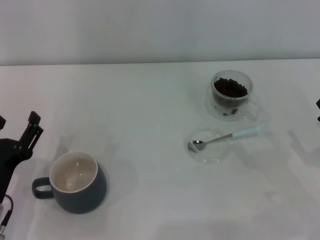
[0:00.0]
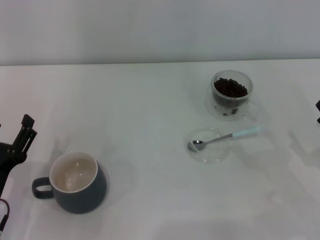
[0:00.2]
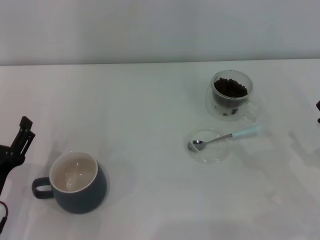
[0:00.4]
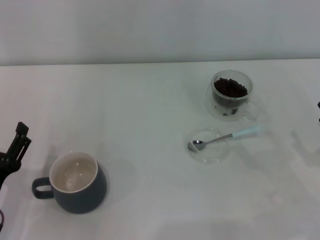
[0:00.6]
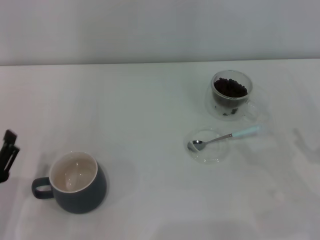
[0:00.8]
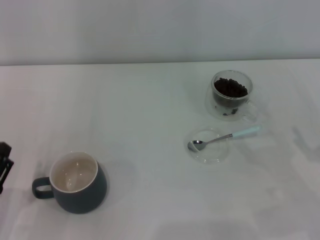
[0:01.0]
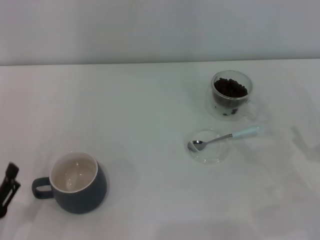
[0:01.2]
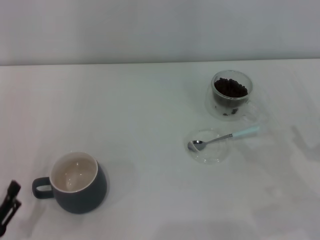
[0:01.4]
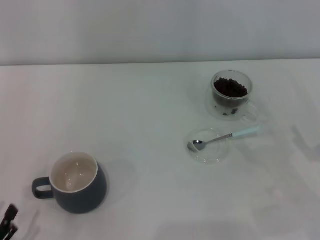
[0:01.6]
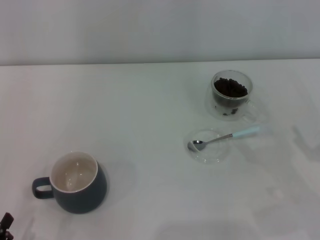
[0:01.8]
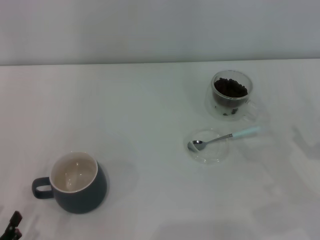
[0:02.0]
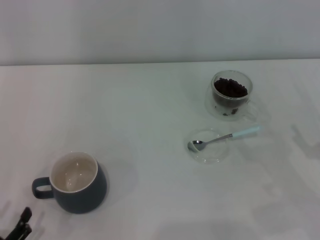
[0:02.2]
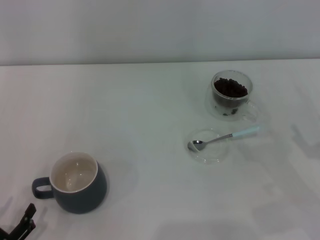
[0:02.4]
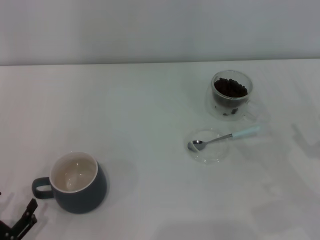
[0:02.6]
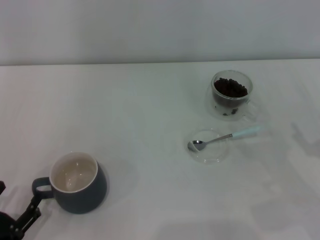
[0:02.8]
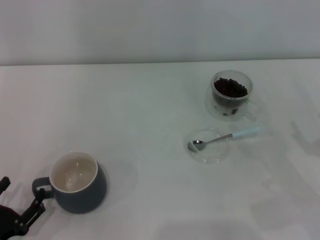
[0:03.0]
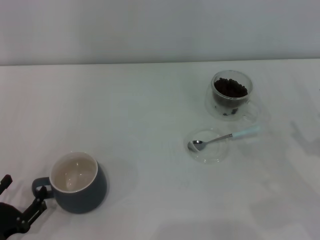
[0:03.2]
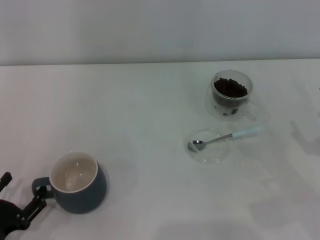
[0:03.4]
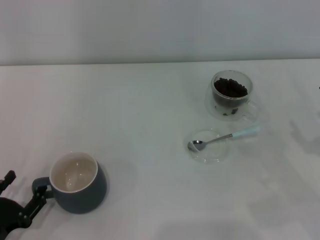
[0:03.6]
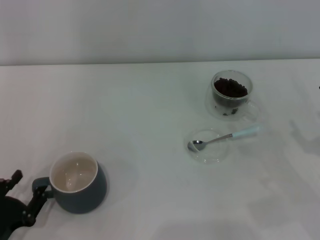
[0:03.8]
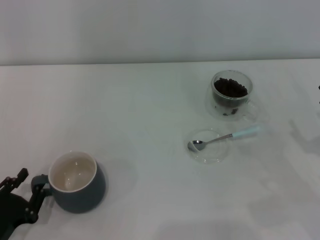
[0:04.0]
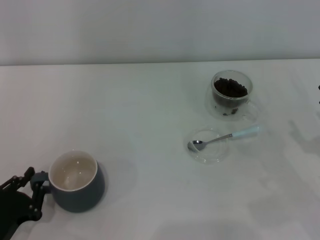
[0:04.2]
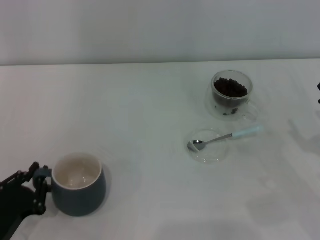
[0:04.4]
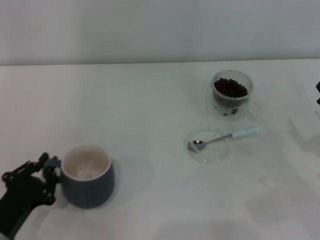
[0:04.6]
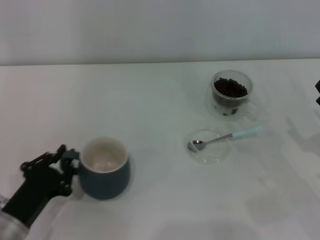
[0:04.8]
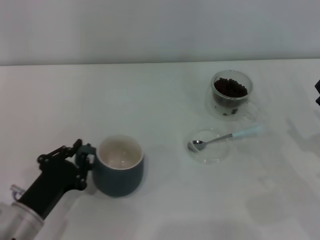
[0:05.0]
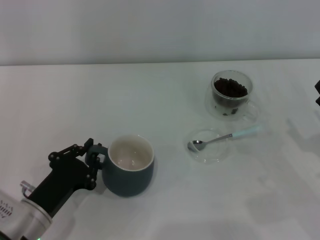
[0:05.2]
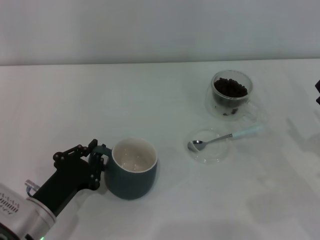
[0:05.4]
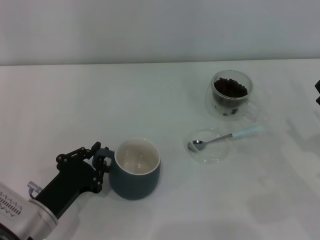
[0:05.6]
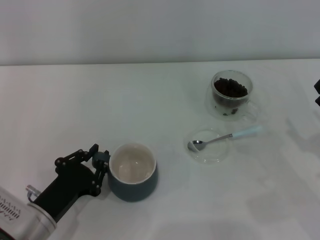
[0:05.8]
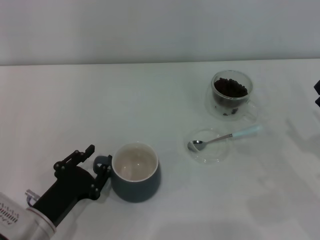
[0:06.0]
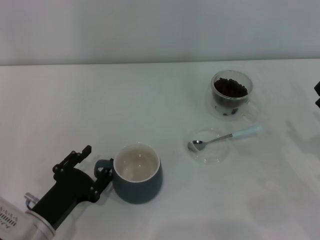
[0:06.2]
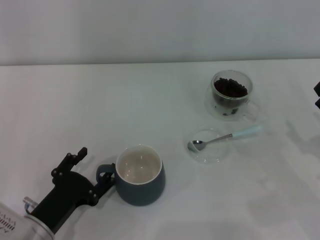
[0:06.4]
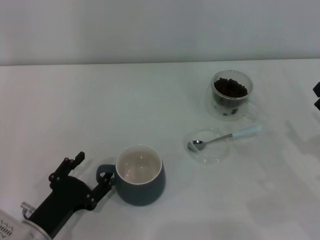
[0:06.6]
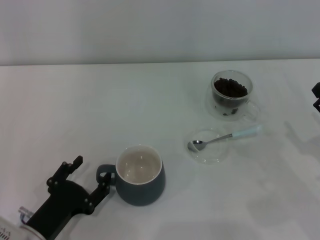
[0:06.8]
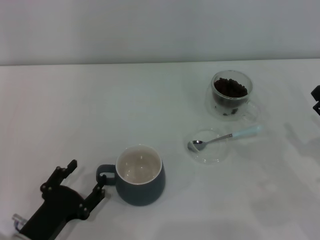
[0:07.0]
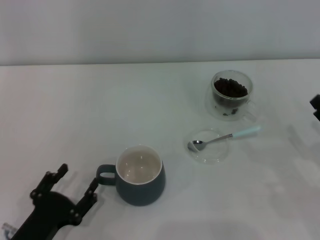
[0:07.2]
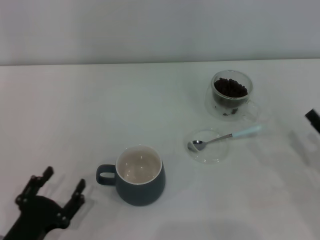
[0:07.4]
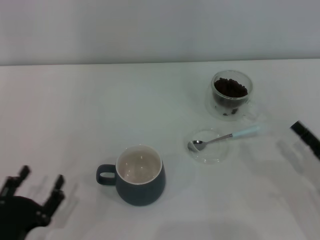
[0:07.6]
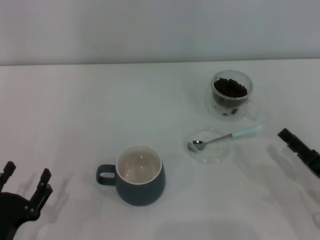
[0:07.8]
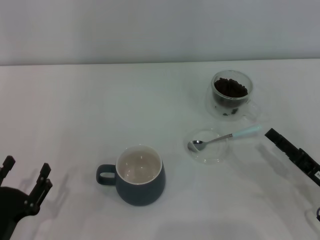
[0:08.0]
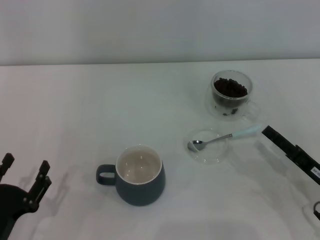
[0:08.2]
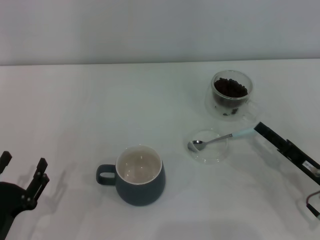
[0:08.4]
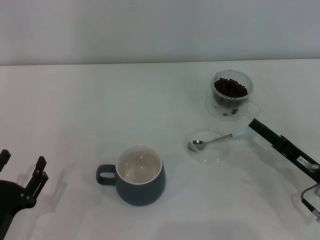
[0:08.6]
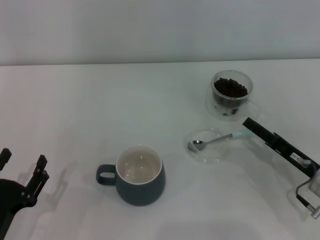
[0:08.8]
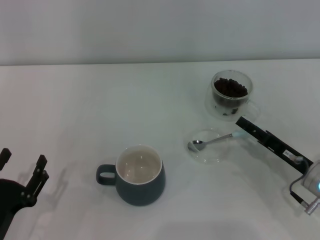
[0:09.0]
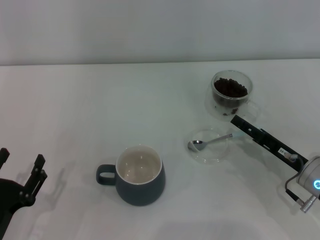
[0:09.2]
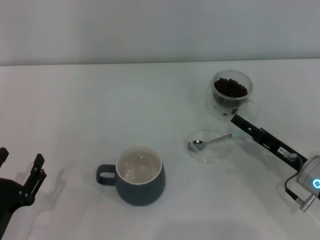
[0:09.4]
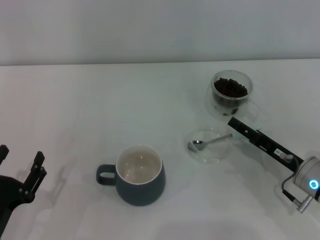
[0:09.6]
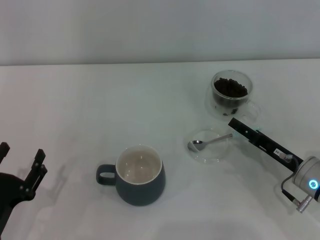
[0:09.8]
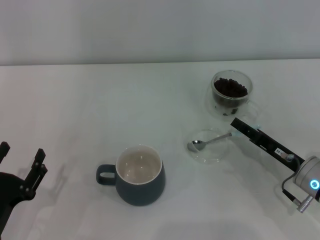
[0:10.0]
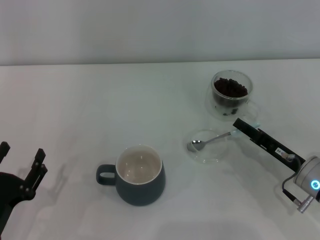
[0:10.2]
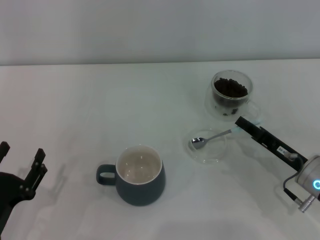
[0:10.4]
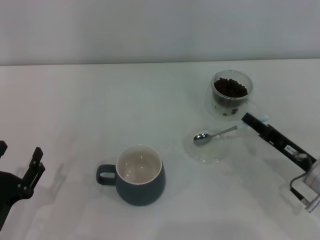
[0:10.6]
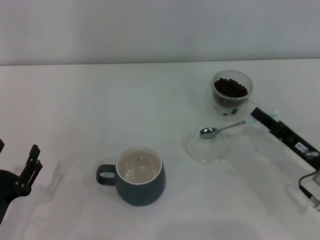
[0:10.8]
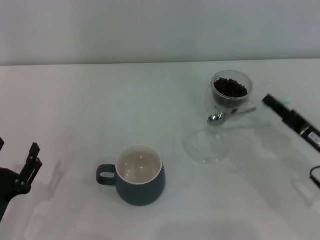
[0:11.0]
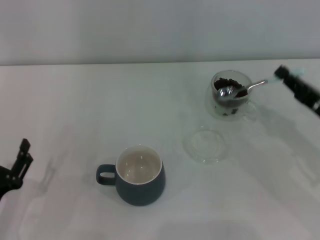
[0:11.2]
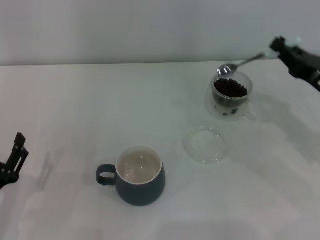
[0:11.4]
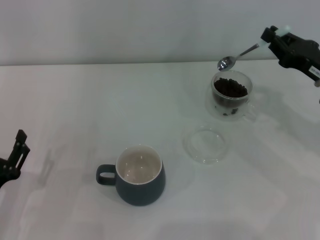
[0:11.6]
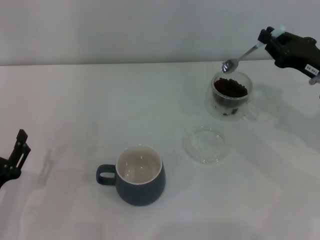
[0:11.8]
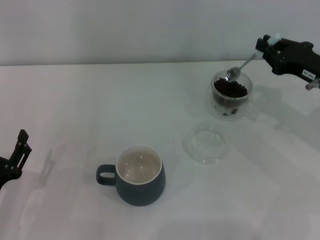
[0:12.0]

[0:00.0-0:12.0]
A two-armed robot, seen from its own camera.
Task of the whole recording: Use a blue spoon to take out the coffee beans from the glass and pour them into the gray cup.
Step, 0:00.0 to 0:07.2: Move the cup to the center of view with the left gripper.
Step, 0:07.4 to 0:10.8: Pick up the spoon with the right gripper.
0:00.0 to 0:01.6: The left gripper travels backward and to the left by about 15 cm.
0:01.6 to 0:03.0: The left gripper goes approximately 5 cm forward.
0:03.0 to 0:04.4: The left gripper closes its fingers.
0:04.4 to 0:06.0: The left gripper moves to the right, approximately 5 cm.
0:06.0 to 0:07.6: The left gripper shifts approximately 5 cm backward, and opens up.
0:07.6 to 0:09.0: The right gripper is displaced forward by about 5 cm.
0:09.0 to 0:10.4: The right gripper closes.
0:10.4 to 0:12.0: The right gripper shifts some 15 cm upward and forward.

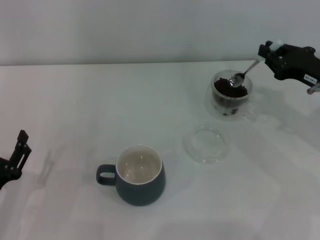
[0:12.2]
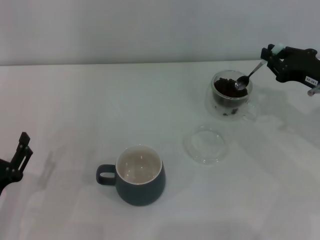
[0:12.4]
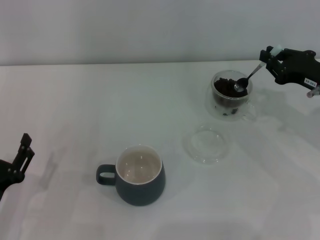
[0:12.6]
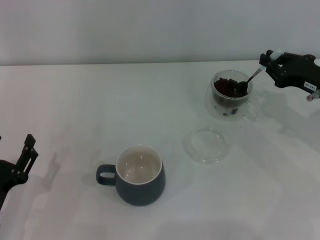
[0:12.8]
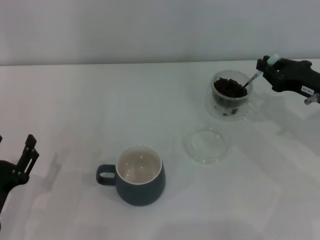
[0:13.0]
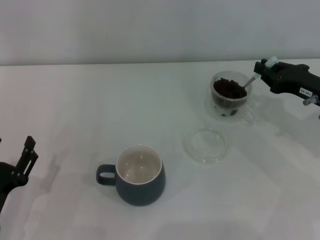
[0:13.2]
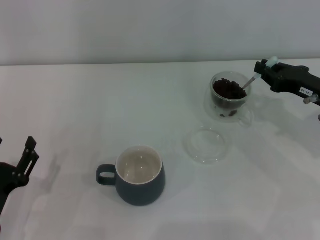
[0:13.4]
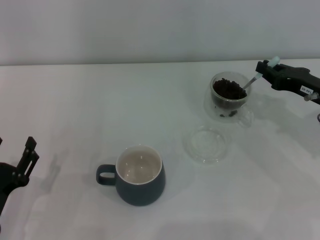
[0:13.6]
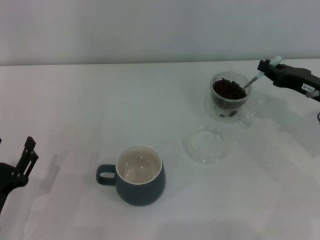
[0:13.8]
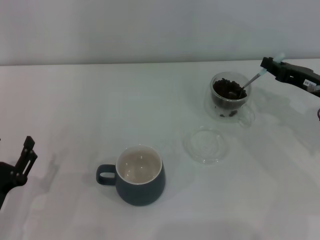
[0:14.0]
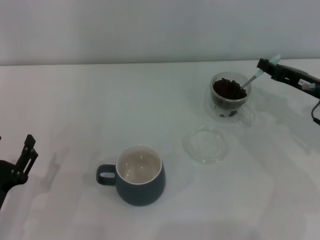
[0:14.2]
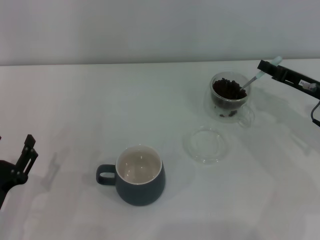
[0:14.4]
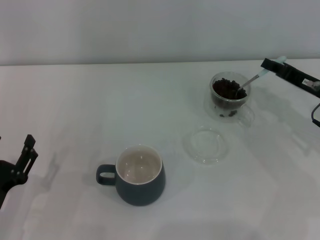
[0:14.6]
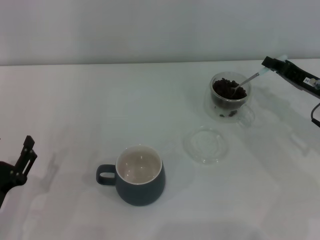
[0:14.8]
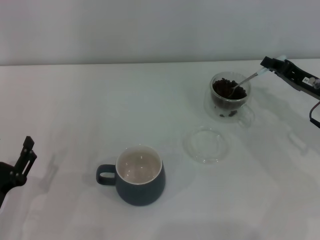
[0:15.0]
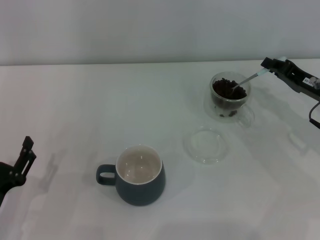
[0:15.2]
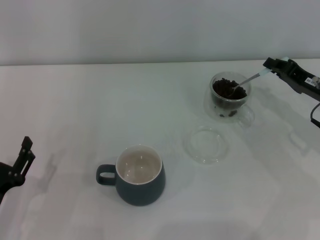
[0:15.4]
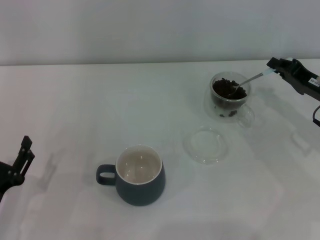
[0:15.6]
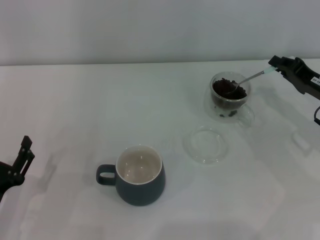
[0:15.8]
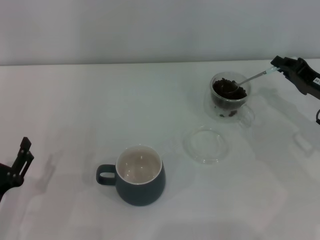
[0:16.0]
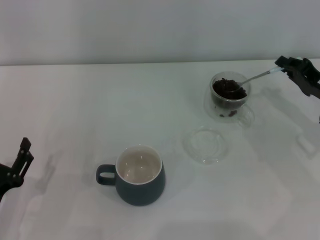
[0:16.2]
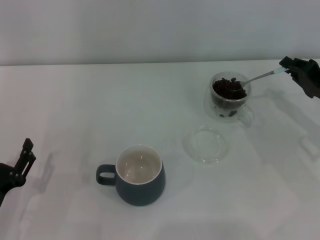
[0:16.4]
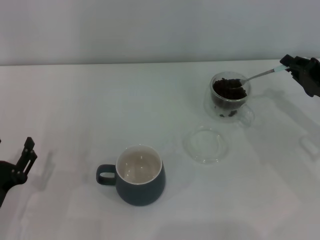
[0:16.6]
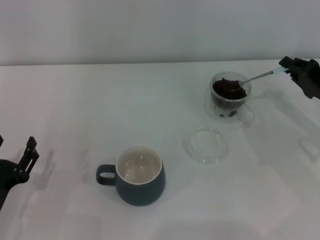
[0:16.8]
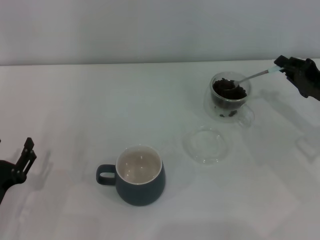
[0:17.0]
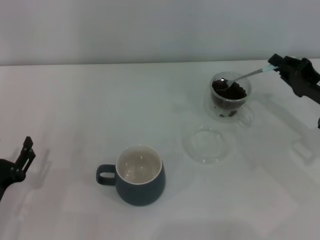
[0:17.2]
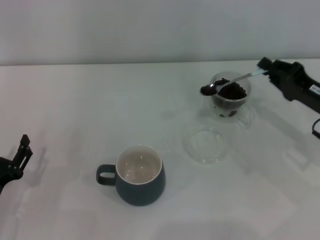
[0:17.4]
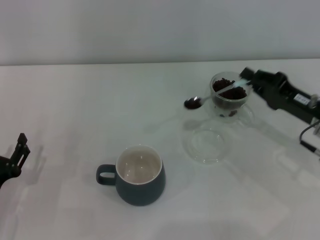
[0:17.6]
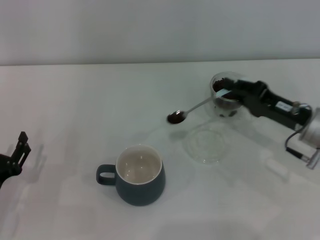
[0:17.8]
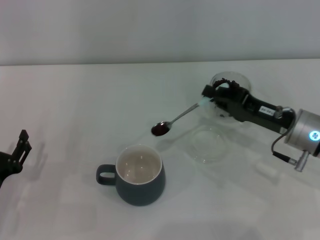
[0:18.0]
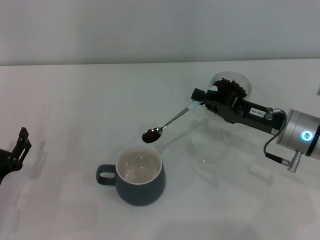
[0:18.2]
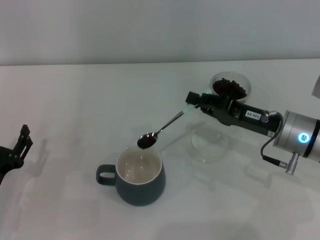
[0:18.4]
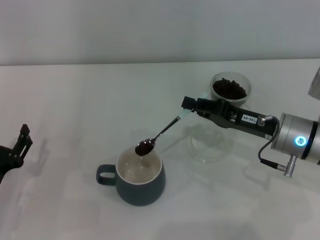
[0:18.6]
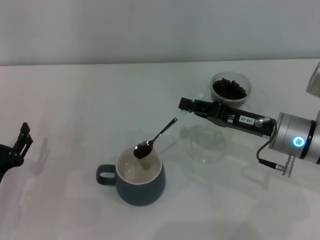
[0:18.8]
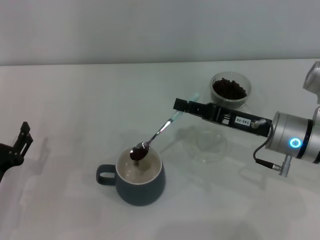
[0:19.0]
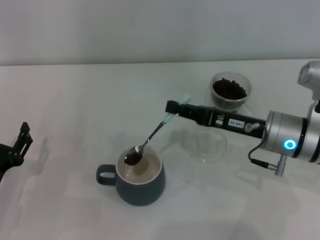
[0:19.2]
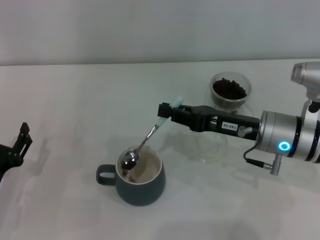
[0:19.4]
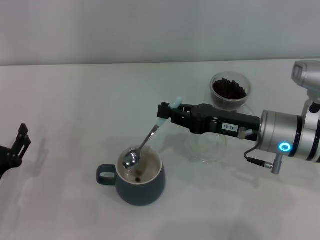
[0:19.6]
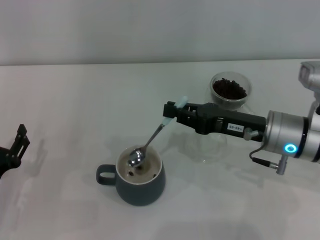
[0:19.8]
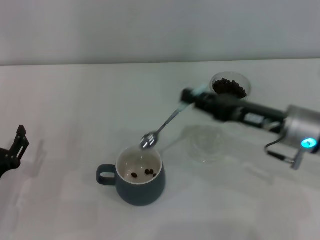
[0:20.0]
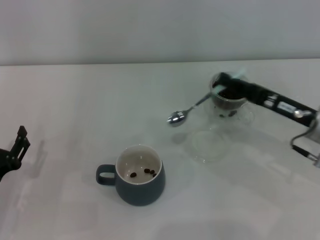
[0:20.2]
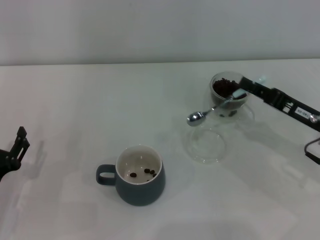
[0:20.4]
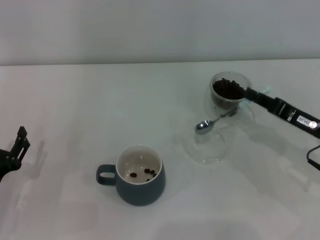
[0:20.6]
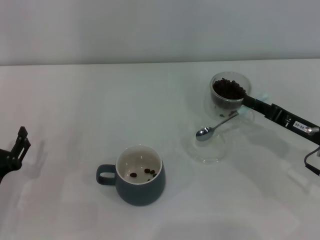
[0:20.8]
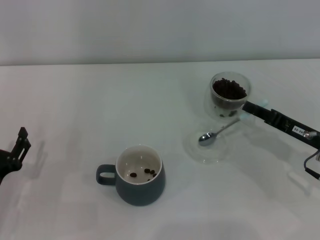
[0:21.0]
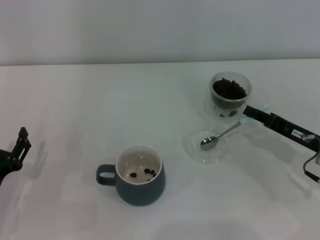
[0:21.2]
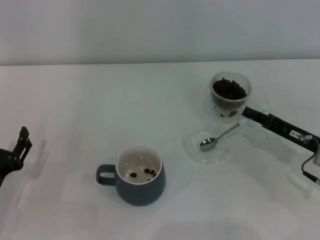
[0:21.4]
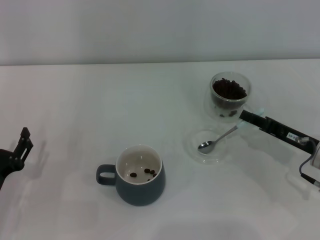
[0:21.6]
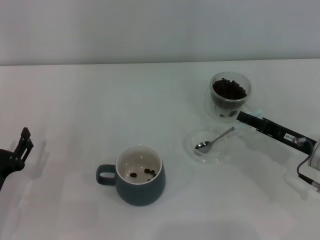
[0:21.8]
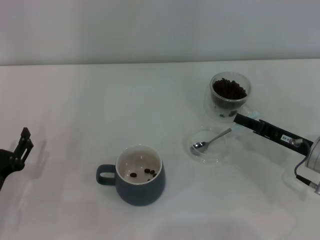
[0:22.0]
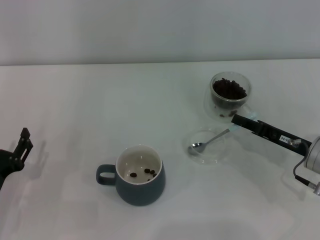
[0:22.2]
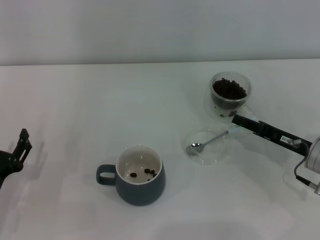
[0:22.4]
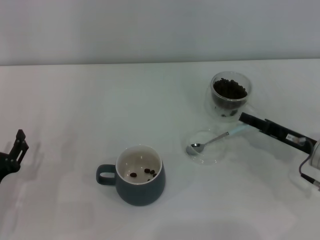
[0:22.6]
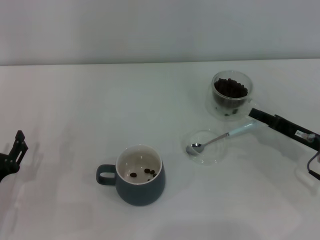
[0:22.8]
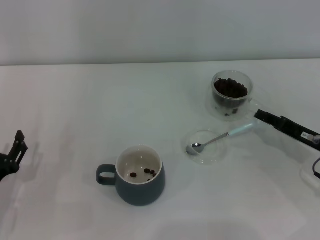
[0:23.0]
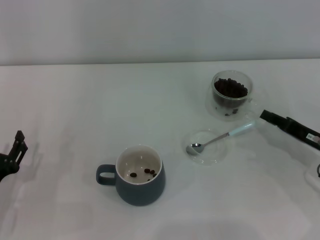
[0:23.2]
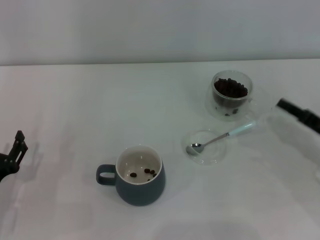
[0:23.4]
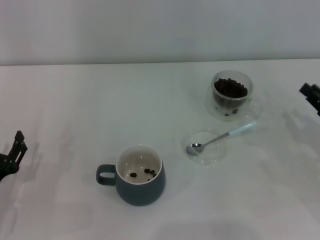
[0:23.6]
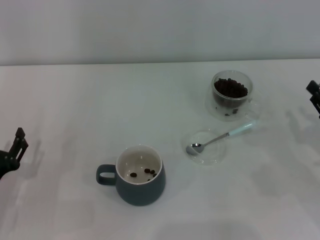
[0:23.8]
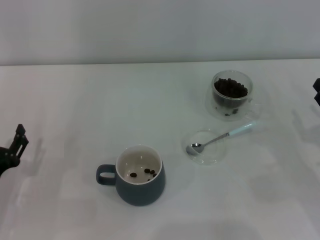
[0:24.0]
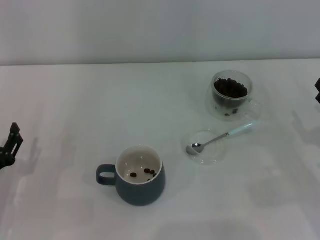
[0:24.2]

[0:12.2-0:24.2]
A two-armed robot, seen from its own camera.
Task of the whole recording: Use a blue spoon to take out the coffee beans from the glass and pour them into the gray cup.
Step, 0:12.2 to 0:20.0: Scoop a spoonful of beans into the cup with the right gripper.
Step, 0:20.2 to 0:23.0: Place the spoon back in its original place with the right gripper.
0:15.2 to 0:16.6: The grippers move only a little.
0:16.6 to 0:18.2: The right gripper heads to the left, covering about 10 cm.
0:19.8 to 0:21.2: The right gripper travels to the right and downward by about 10 cm.
0:21.2 to 0:22.6: The grippers stay close to where they were, moving slightly.
0:22.6 to 0:24.2: The right gripper is displaced backward by approximately 5 cm.
